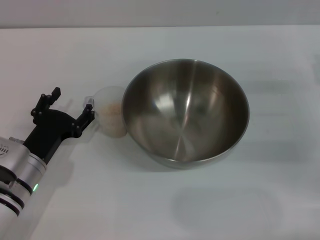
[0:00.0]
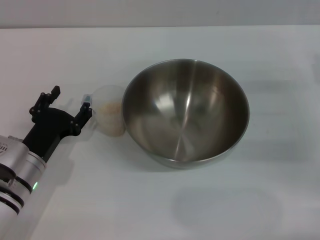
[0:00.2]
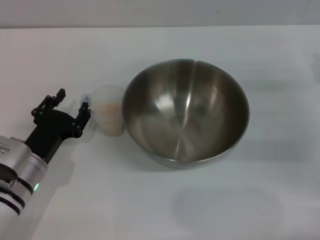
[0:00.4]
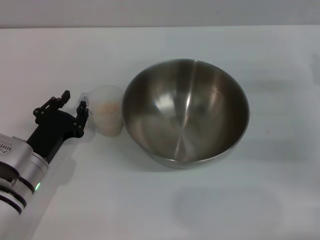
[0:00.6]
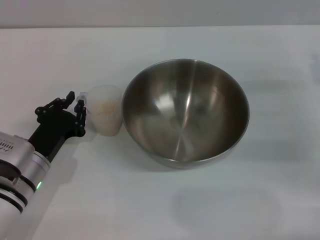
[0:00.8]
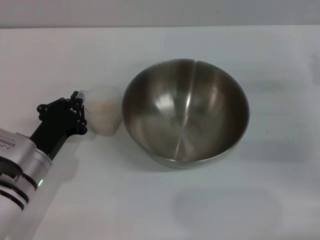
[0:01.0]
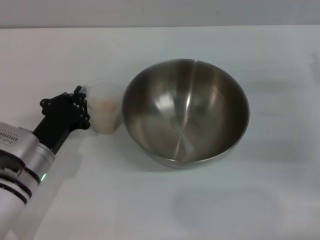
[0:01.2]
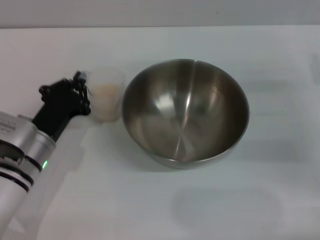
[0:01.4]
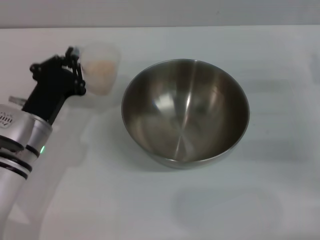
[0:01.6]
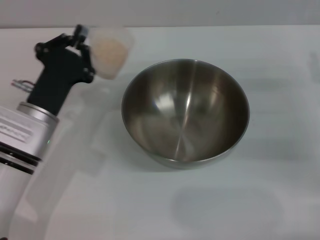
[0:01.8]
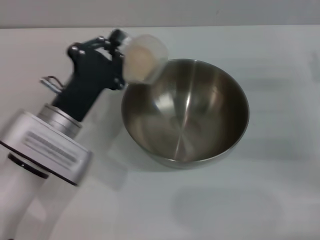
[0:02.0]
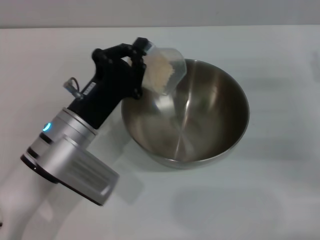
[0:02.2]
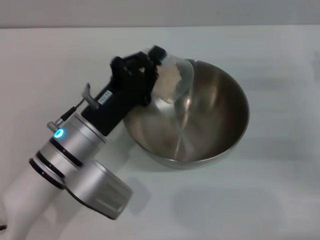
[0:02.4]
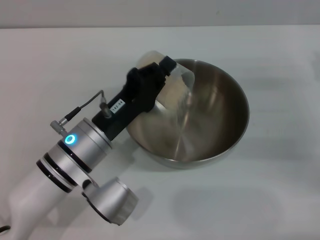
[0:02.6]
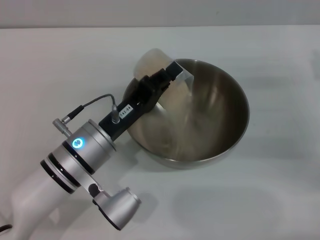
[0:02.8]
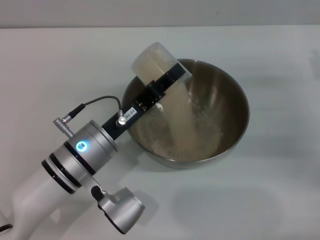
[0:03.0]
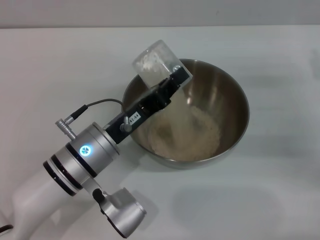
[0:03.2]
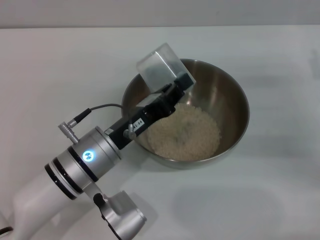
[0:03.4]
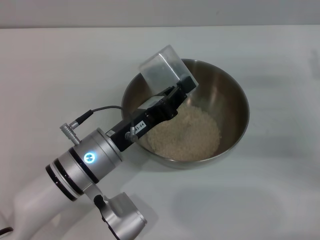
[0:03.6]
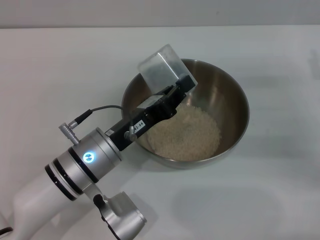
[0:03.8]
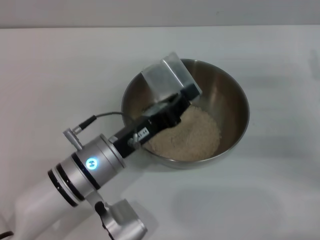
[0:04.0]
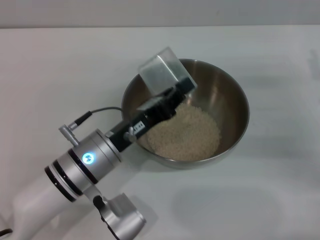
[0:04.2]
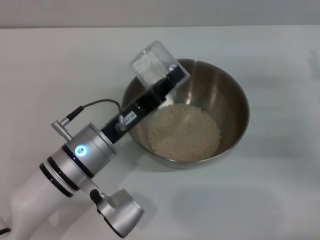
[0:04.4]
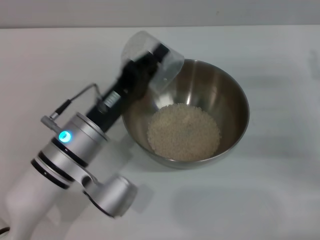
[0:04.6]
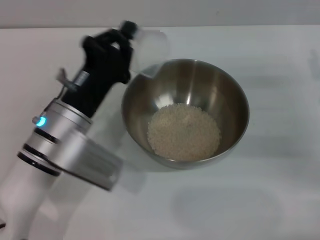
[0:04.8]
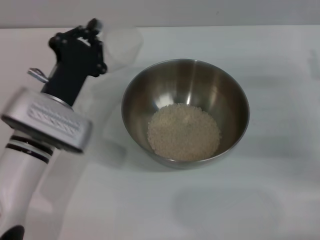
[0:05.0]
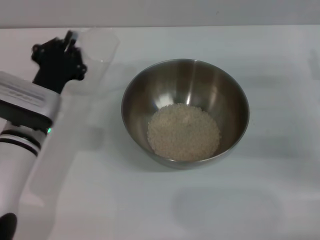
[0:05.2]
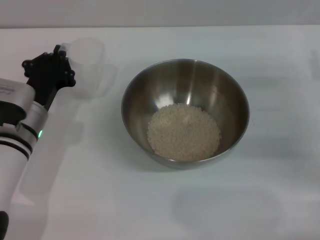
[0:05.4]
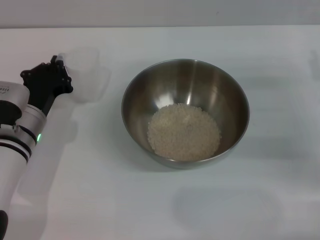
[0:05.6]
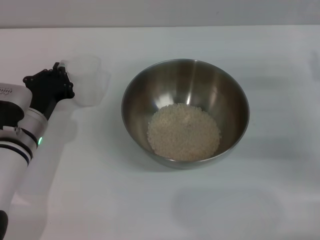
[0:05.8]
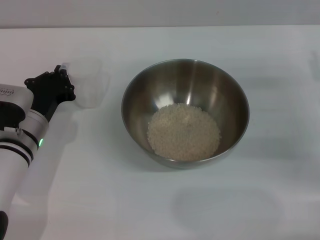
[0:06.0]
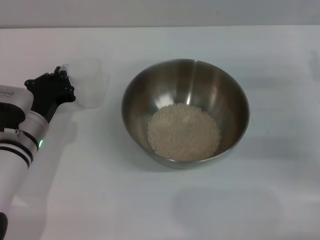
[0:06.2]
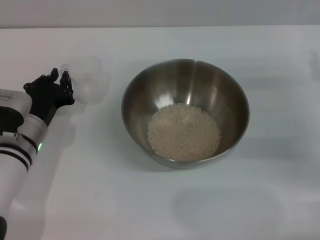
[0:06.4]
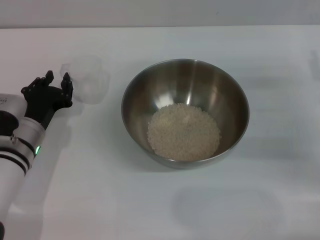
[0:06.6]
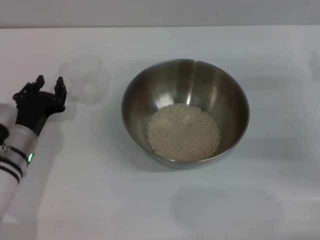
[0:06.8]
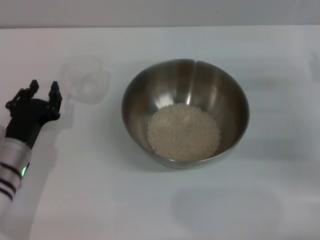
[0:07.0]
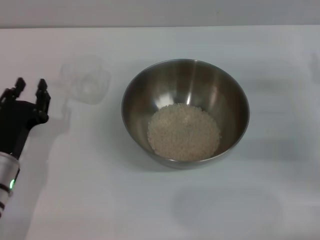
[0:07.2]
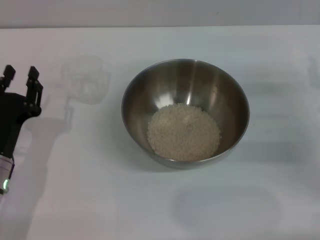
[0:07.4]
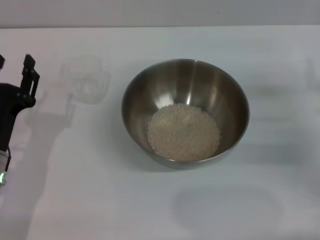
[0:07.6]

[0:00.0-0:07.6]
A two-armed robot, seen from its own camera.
Task of the whole recording: Place the bowl in the middle of the table with one hand and pour the rice from the grain cup into it with the other hand.
Step, 0:02.0 to 0:04.2: Pour the rice from the cup into the bowl with the left gripper.
Step, 0:04.4 to 0:06.0: Place the cup on the table with the left gripper.
0:00.0 to 0:01.6: The left gripper ends up some 5 cm from where it was, and closes.
0:01.6 to 0:03.0: The left gripper travels to the right by approximately 10 cm.
0:03.0 to 0:04.6: The grippers move only a little.
0:04.6 to 0:06.0: The left gripper heads to the left, forward and downward, covering some 10 cm.
0:06.0 to 0:07.6: The left gripper heads backward, covering some 10 cm, and opens.
